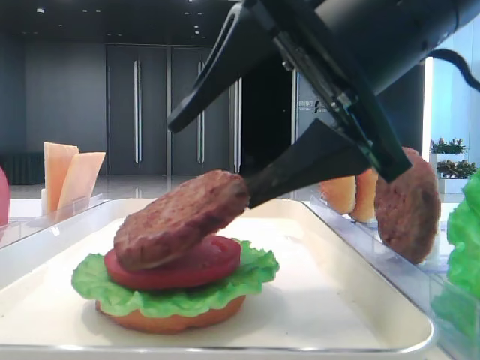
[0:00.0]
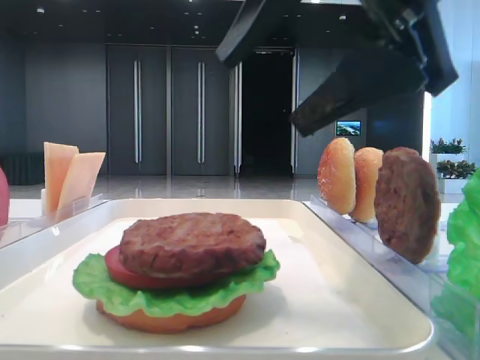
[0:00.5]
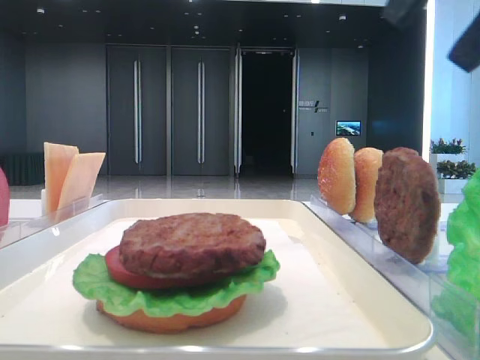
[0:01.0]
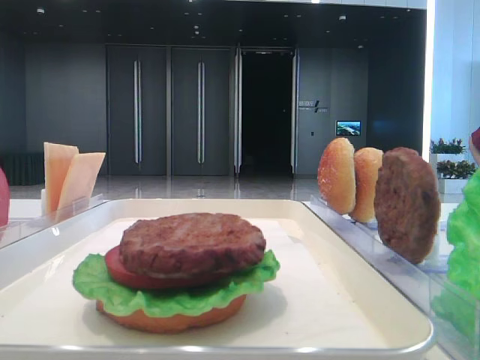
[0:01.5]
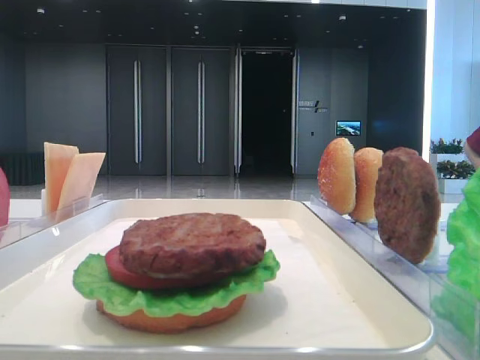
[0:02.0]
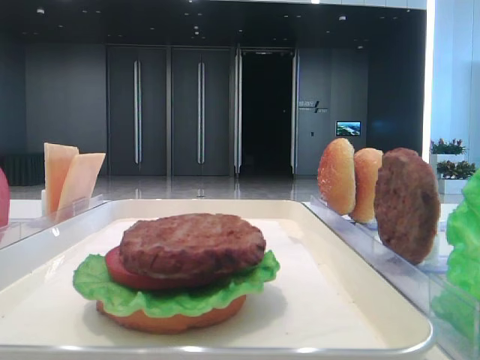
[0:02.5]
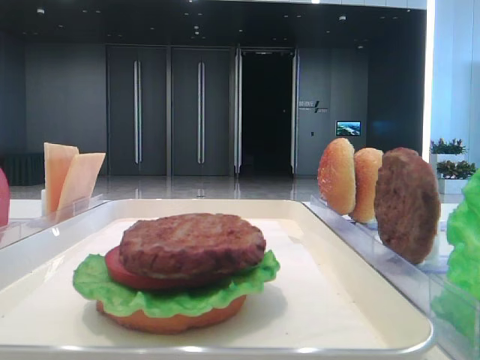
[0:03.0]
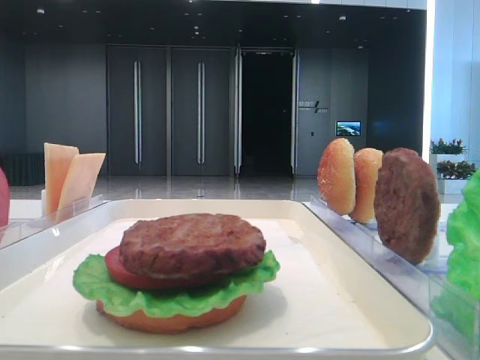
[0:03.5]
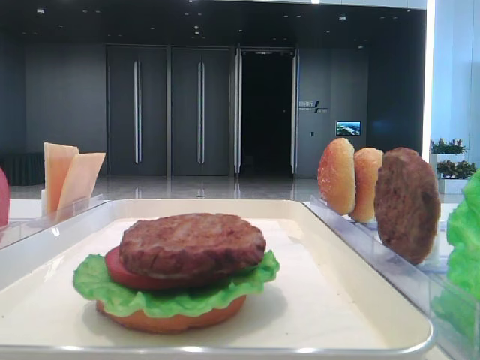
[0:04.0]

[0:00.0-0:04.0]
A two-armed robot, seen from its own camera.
0:00.0 to 0:02.0: The right gripper travels to the right, backward and upward by some 25 cm.

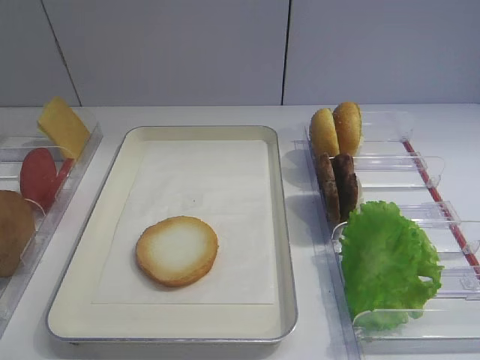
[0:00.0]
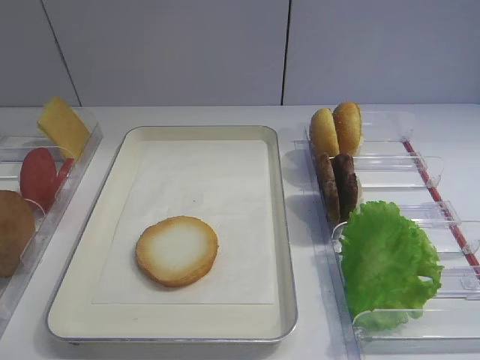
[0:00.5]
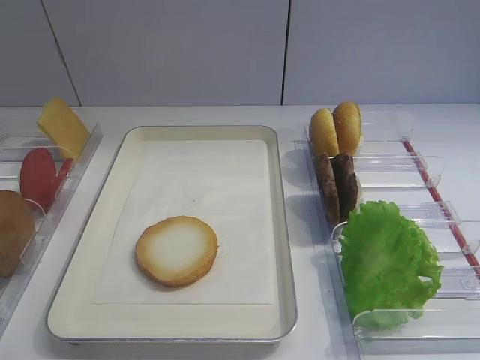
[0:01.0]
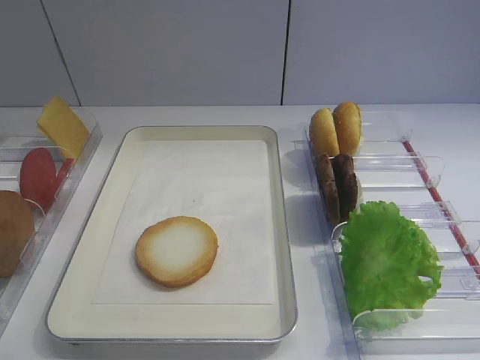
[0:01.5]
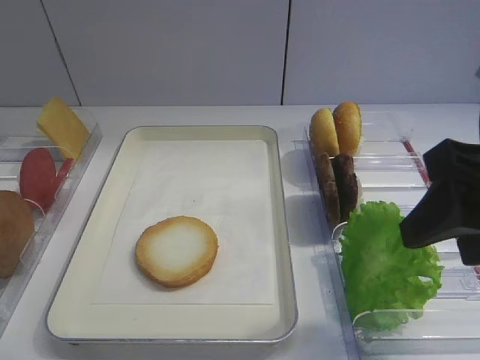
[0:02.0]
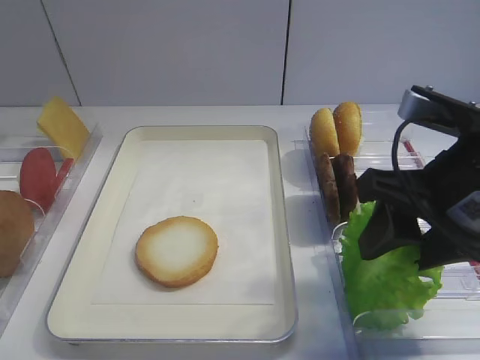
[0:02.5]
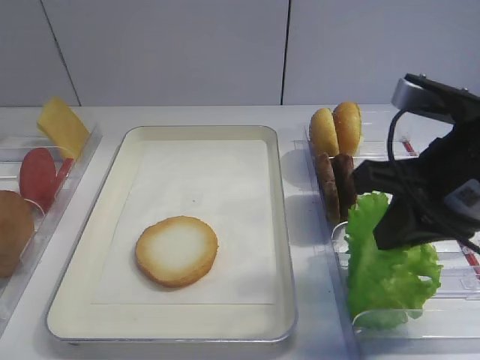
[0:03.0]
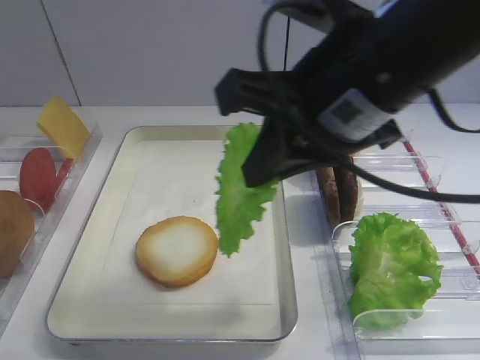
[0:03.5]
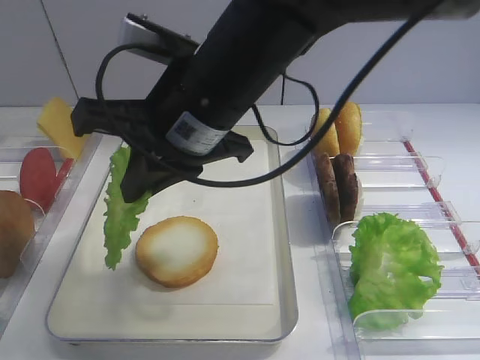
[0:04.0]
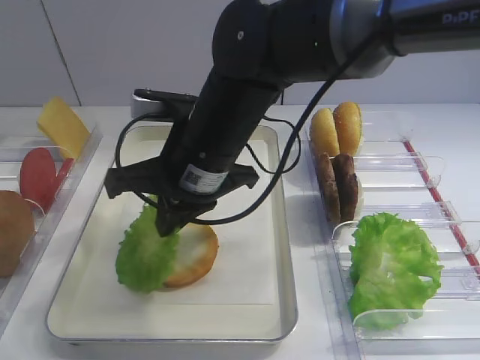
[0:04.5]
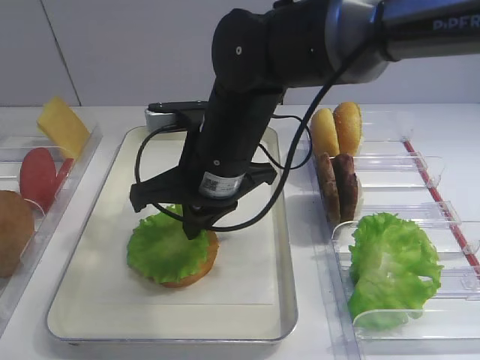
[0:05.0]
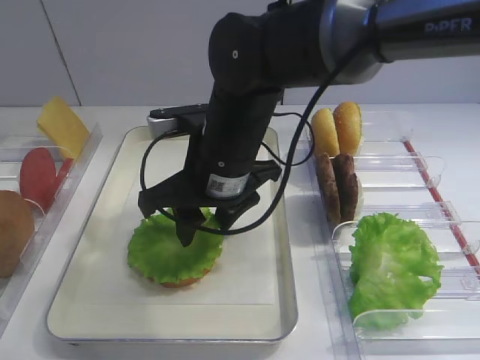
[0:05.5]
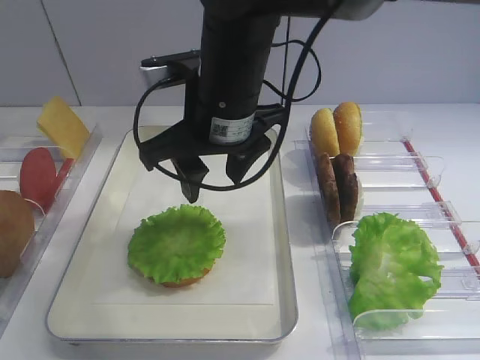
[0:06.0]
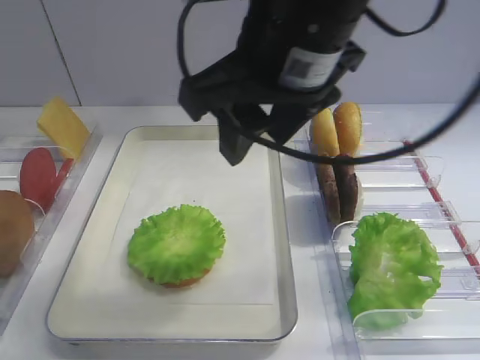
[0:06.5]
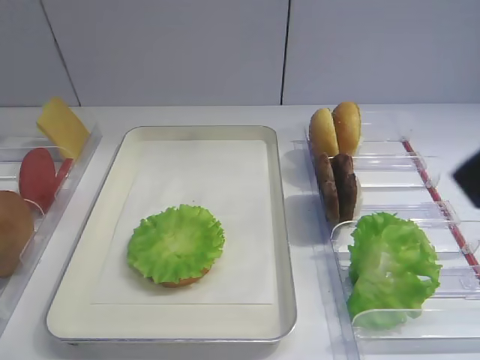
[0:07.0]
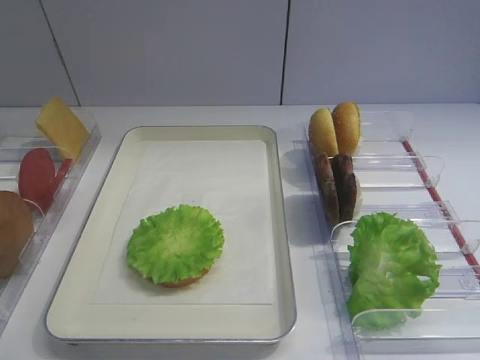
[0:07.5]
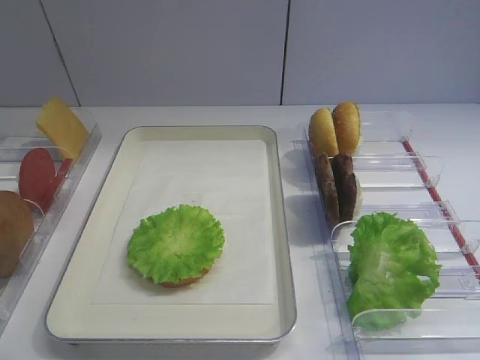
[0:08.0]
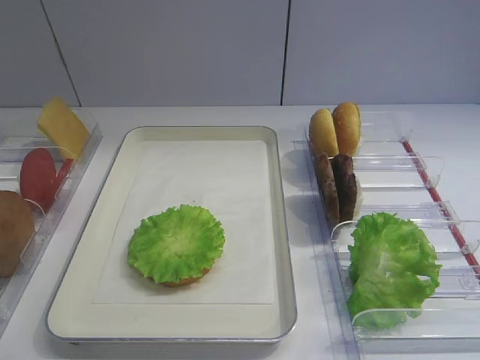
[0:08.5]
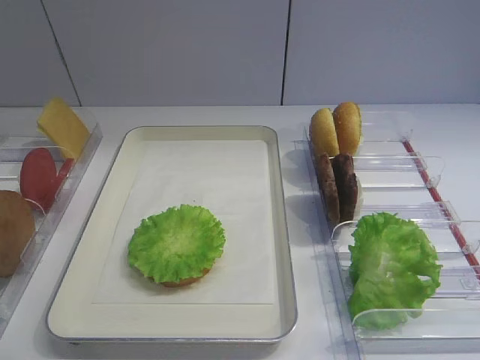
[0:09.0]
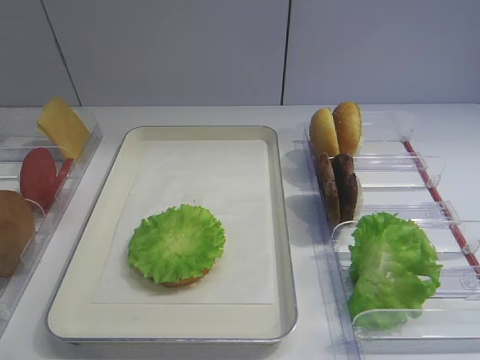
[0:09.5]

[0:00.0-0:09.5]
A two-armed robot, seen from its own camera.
Step, 0:00.0 to 0:03.0: Pick up the lettuce leaf with the right gripper.
Step, 0:03.5 to 0:05.5: Place the lettuce leaf on the bread slice with the right gripper.
0:02.0 to 0:04.0: The right gripper heads to the left and forward, covering some 25 cm, and closes up.
0:04.0 to 0:05.5: The right gripper goes approximately 5 cm downward, and opens.
0:05.5 to 0:07.5: The right gripper shifts roughly 40 cm to the right and backward.

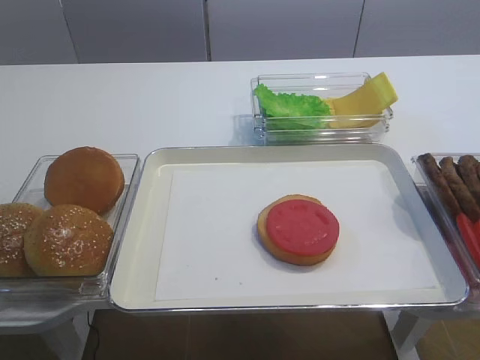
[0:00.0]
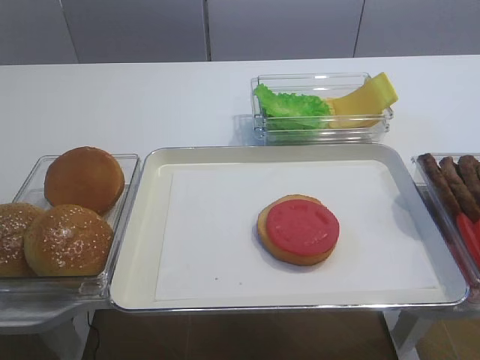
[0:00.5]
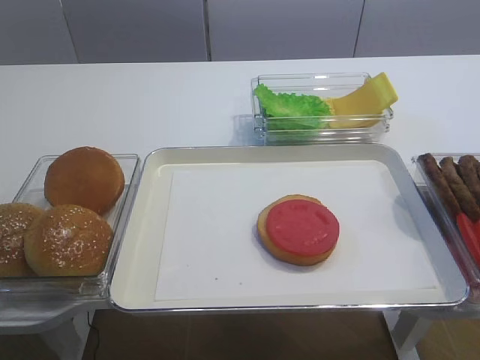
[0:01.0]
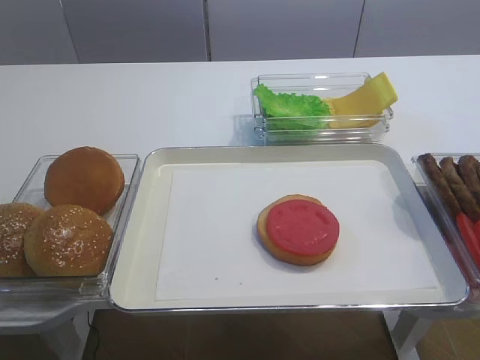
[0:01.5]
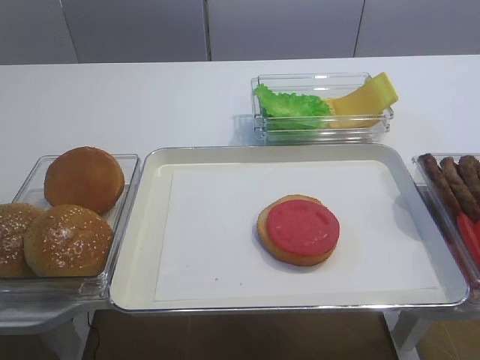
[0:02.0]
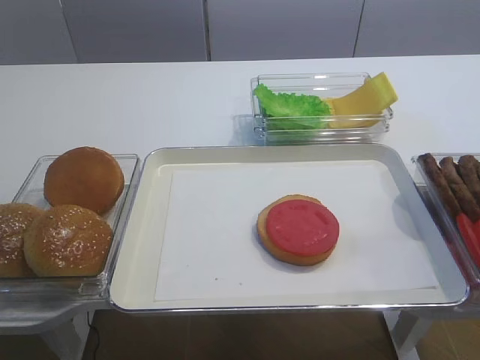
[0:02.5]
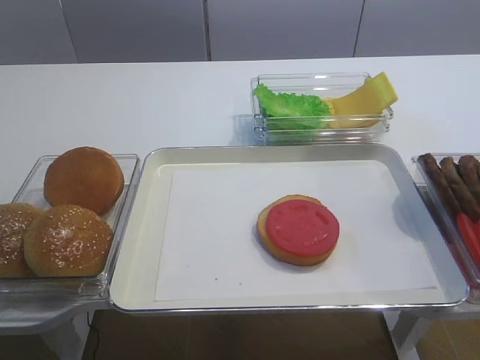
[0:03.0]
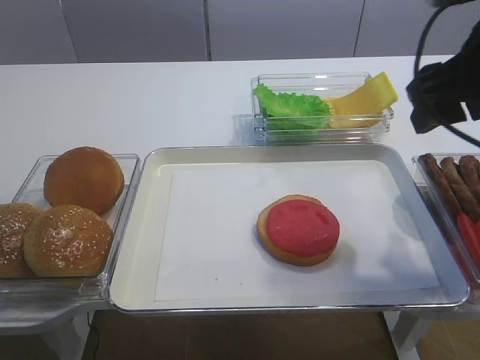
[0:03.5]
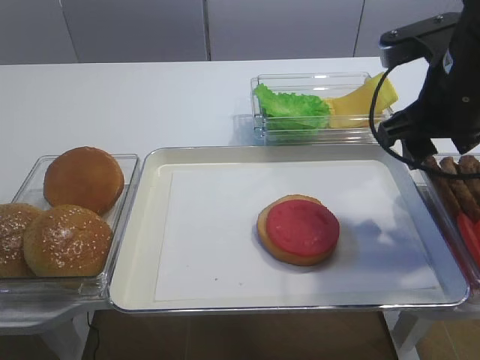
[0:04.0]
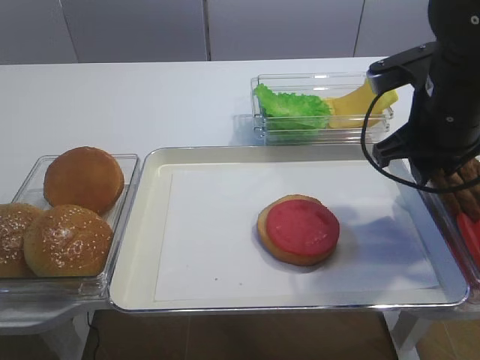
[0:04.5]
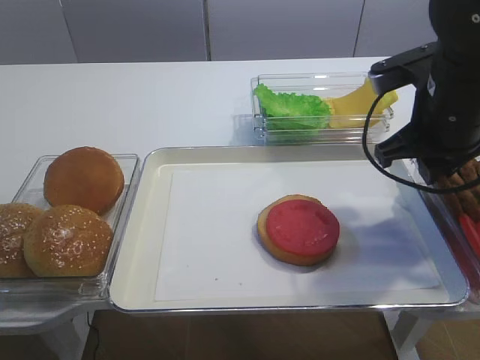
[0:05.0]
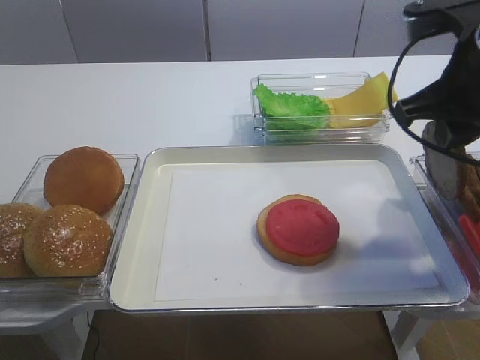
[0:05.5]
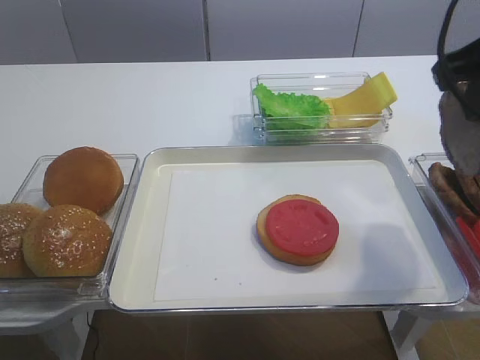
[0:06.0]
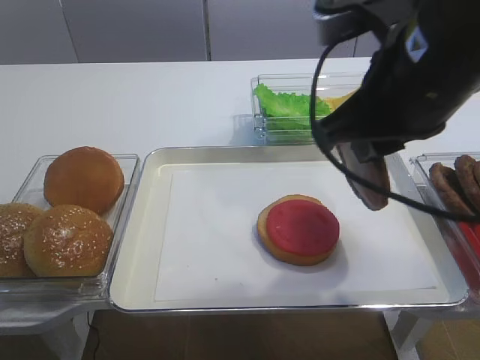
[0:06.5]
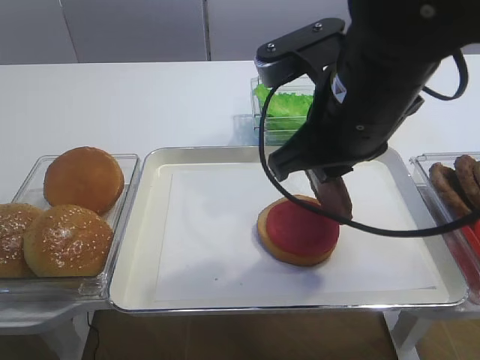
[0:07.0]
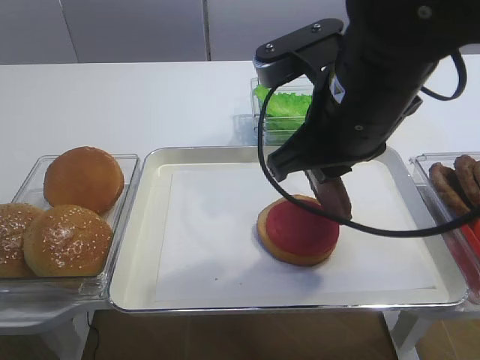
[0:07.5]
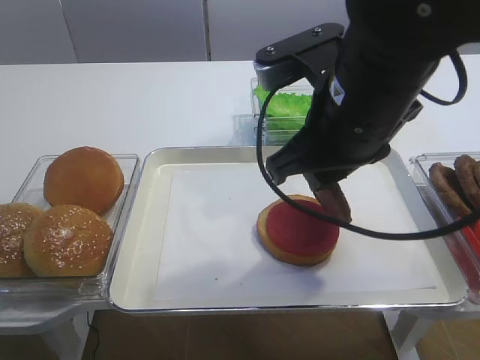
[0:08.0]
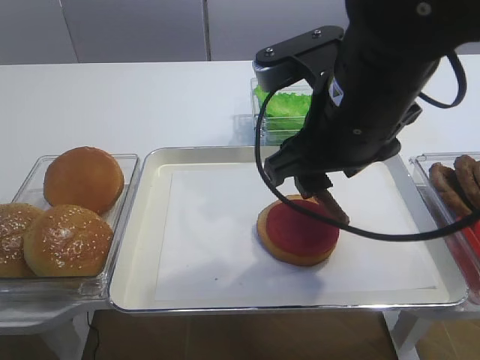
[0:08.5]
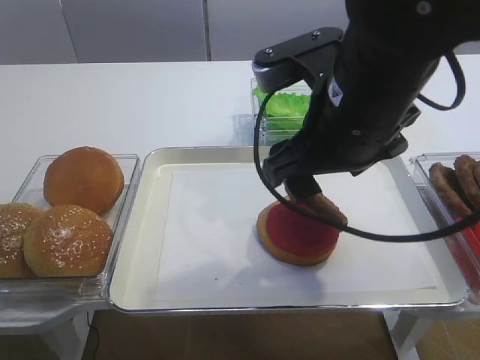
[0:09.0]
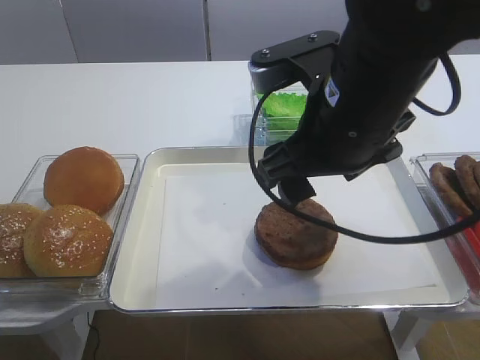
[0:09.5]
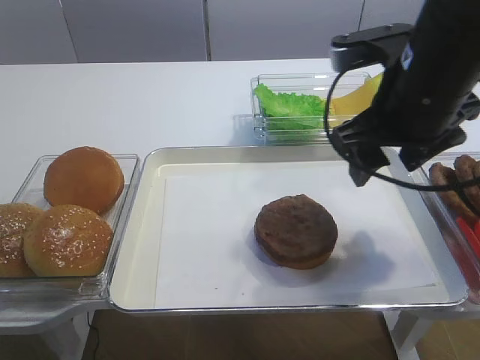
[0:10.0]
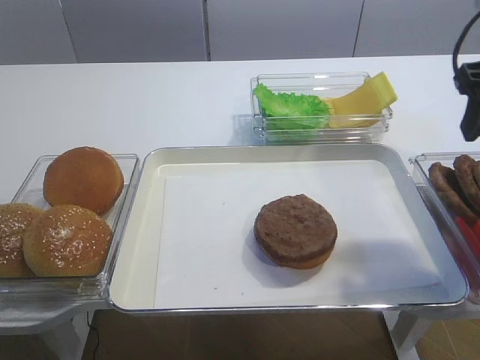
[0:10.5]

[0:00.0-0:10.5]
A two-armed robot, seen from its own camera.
Step, 0:00.0 to 0:06.0: Pick up the cutlet with the right gripper.
Step, 0:06.5 to 0:09.5: Place the cutlet on the tomato slice with the right gripper.
0:02.0 to 0:04.0: The right gripper shifts roughly 30 cm forward.
0:04.0 to 0:06.5: The right gripper moves backward and to the left, some 10 cm, and closes up.
0:06.5 to 0:08.5: The right gripper changes place by some 5 cm, and opens up.
0:08.5 to 0:10.5: The right gripper goes about 15 cm to the right.

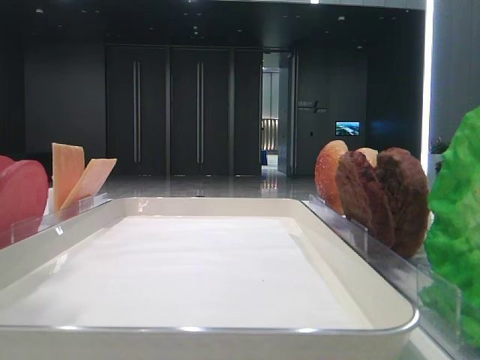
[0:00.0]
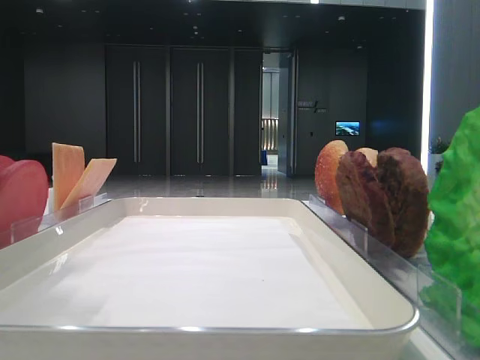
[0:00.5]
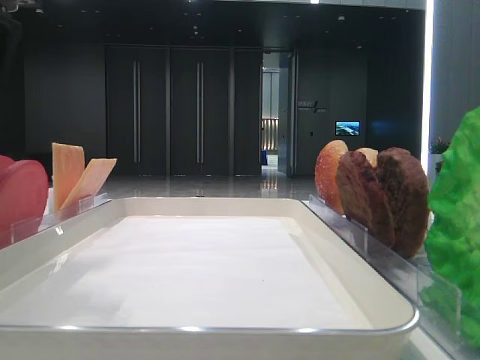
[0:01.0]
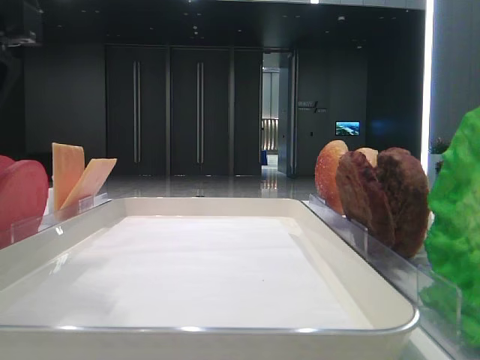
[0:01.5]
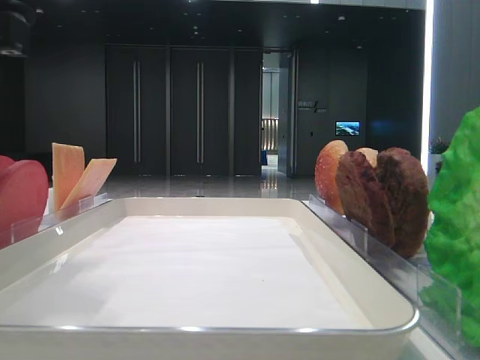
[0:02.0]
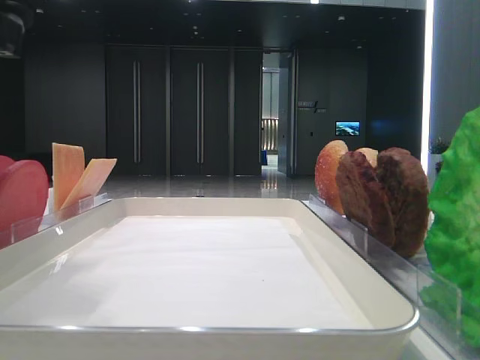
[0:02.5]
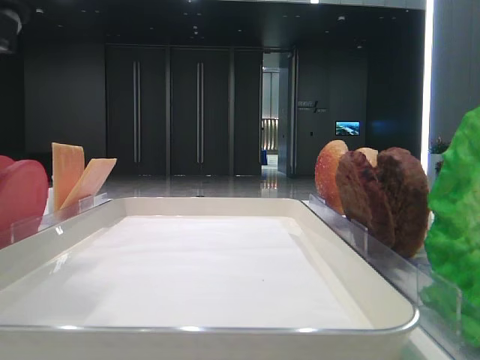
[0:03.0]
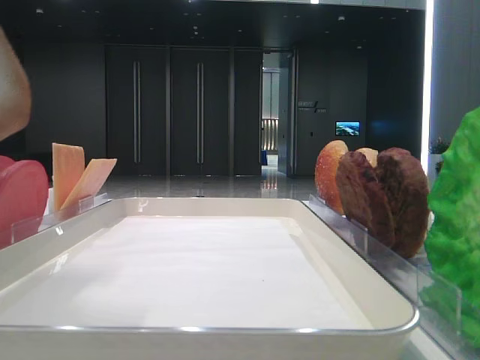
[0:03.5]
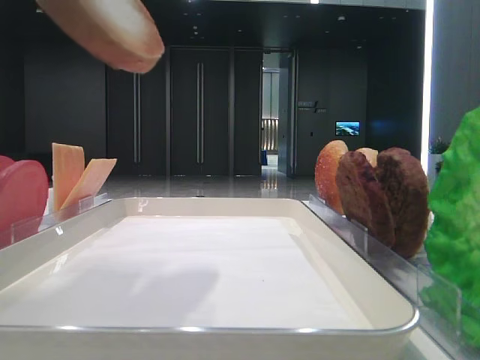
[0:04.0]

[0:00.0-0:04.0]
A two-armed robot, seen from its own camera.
0:00.0 to 0:02.0: The left gripper is displaced downward by about 5 cm.
0:02.0 to 0:04.0: The left gripper heads upward, covering approximately 10 cm, and closes.
